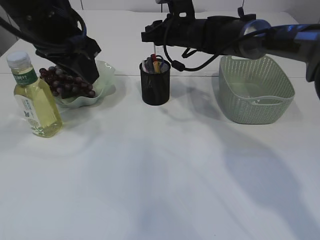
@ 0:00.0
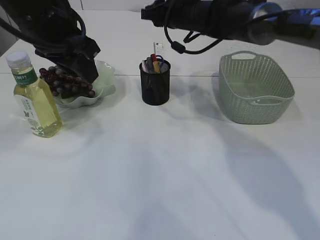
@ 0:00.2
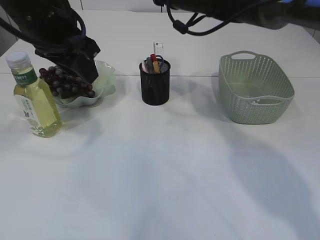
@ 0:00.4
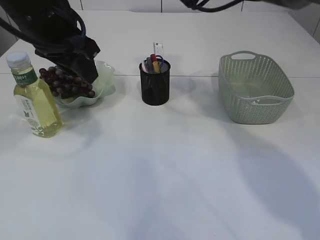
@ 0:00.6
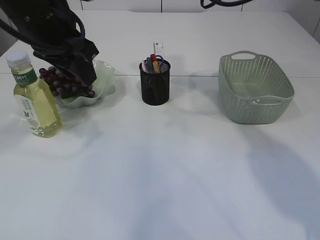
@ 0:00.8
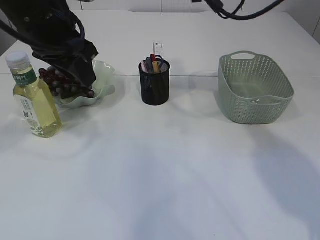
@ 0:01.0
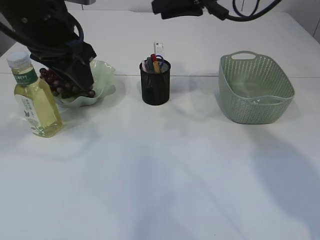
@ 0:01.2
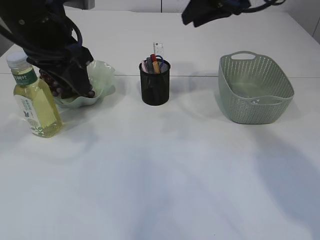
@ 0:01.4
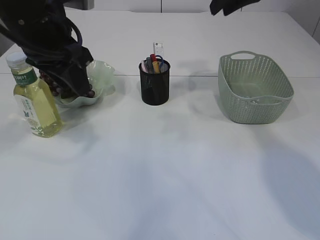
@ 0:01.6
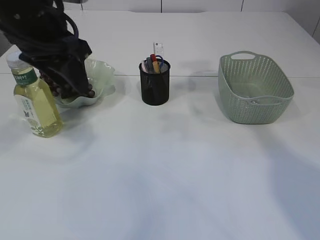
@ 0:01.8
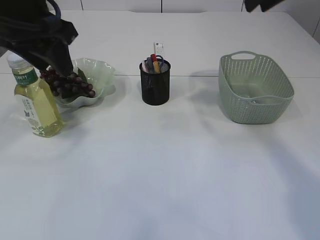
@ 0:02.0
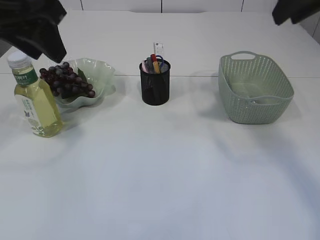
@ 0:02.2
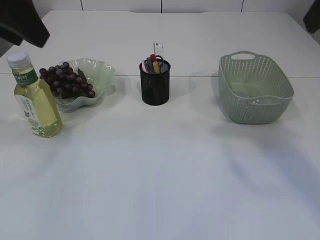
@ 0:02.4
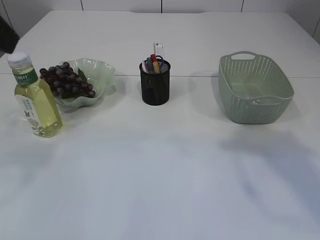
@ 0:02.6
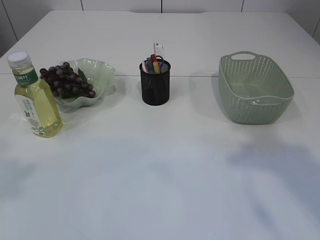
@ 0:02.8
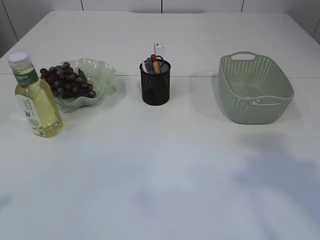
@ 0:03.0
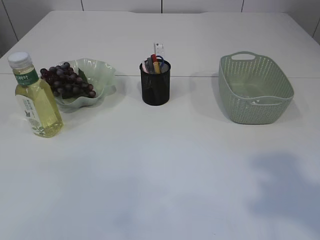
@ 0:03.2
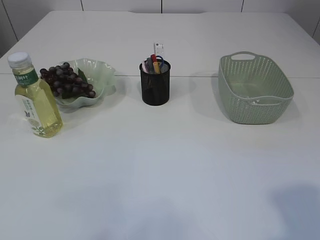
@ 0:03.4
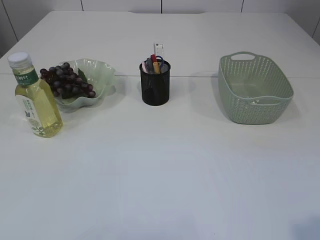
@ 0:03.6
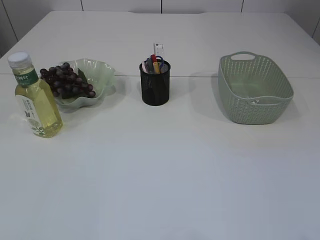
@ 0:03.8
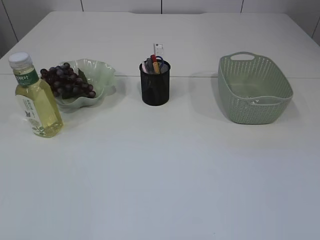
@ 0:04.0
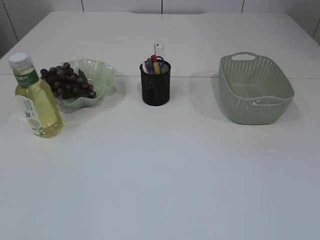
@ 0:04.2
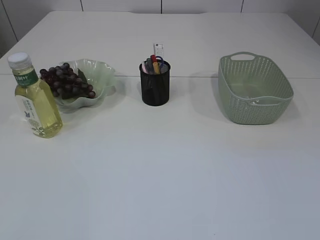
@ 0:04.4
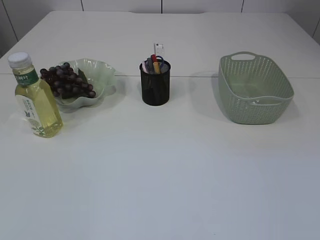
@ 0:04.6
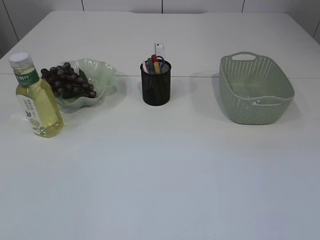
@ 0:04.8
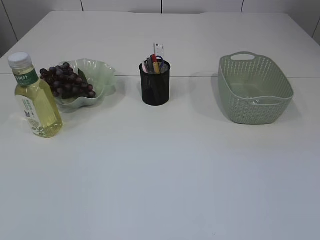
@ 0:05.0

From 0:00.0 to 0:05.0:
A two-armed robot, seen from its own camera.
From 0:00.0 to 0:01.6: The right gripper goes some 20 cm upward, to the right and backward.
From 0:01.6 to 0:03.4: The left gripper heads backward and to the left, covering about 35 cm. Meanwhile the right gripper is displaced backward by some 35 cm.

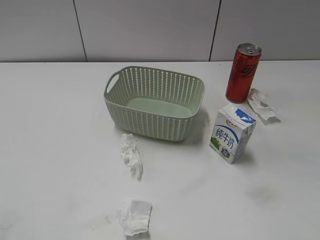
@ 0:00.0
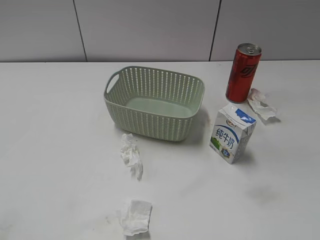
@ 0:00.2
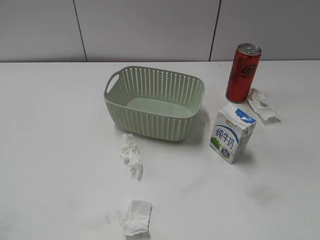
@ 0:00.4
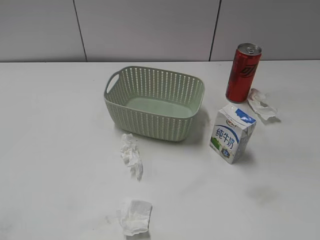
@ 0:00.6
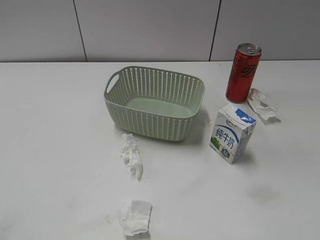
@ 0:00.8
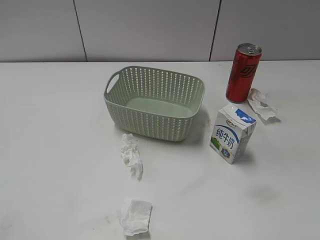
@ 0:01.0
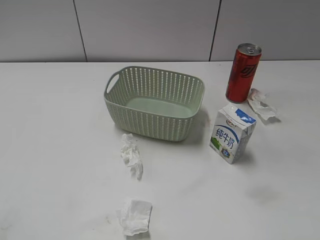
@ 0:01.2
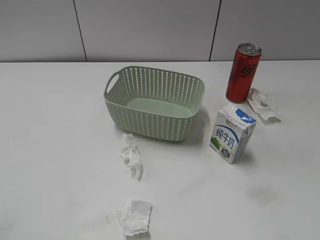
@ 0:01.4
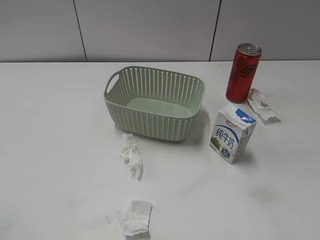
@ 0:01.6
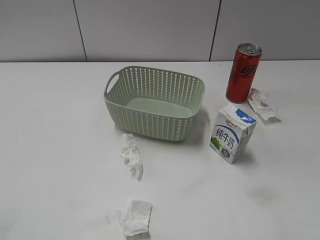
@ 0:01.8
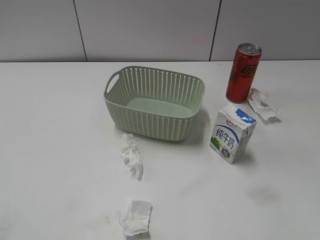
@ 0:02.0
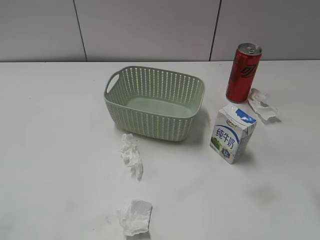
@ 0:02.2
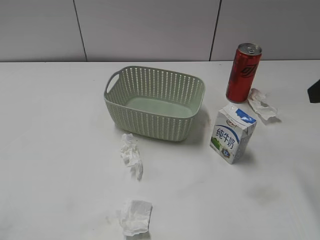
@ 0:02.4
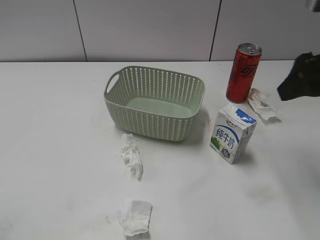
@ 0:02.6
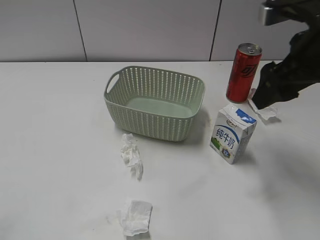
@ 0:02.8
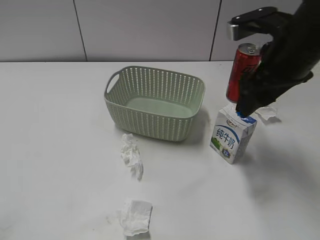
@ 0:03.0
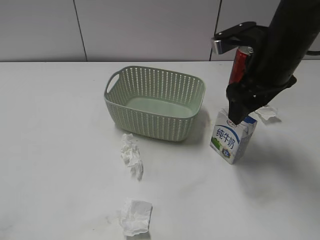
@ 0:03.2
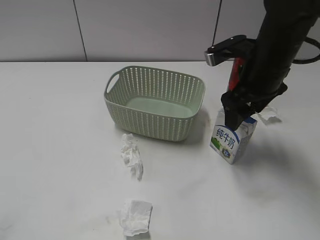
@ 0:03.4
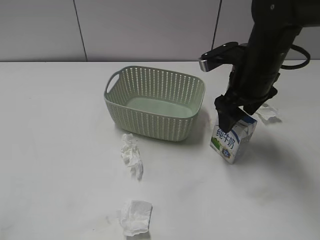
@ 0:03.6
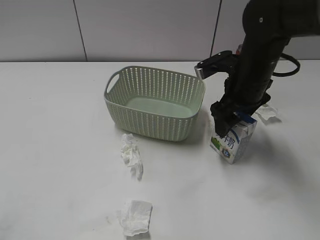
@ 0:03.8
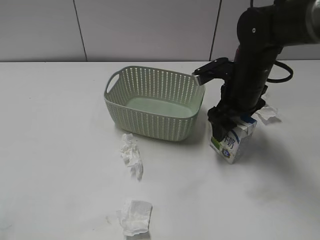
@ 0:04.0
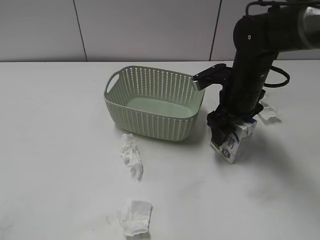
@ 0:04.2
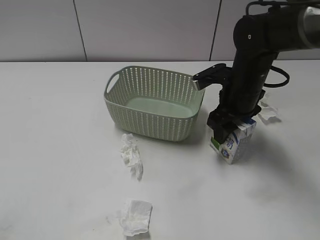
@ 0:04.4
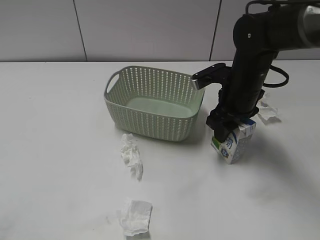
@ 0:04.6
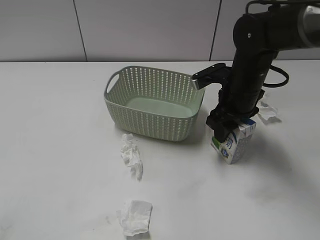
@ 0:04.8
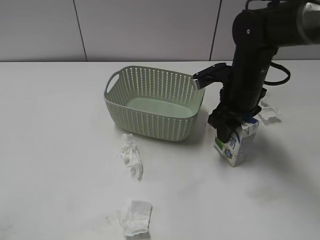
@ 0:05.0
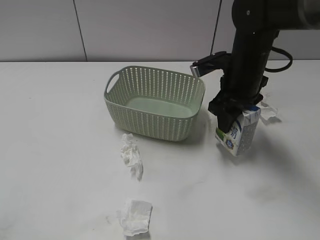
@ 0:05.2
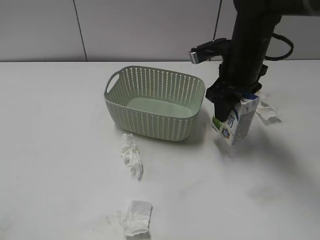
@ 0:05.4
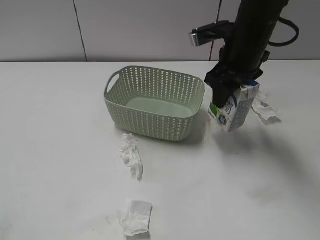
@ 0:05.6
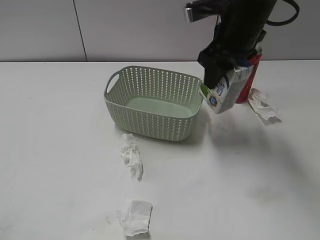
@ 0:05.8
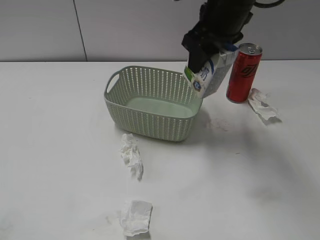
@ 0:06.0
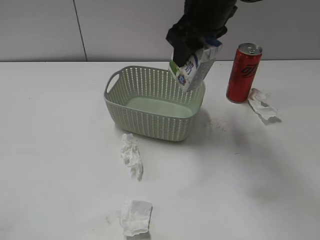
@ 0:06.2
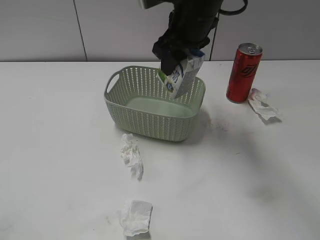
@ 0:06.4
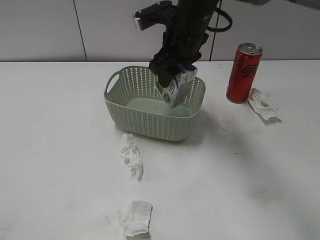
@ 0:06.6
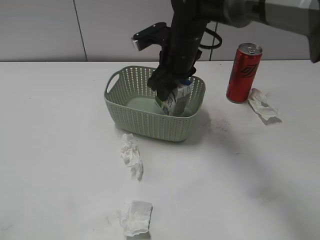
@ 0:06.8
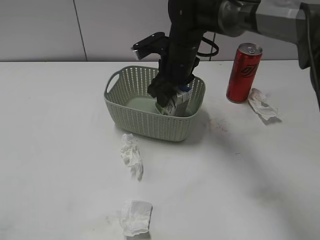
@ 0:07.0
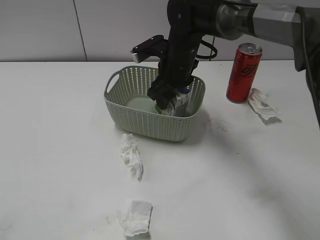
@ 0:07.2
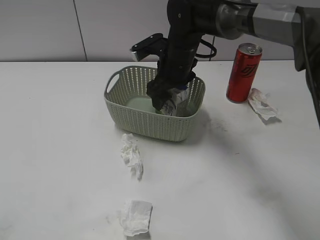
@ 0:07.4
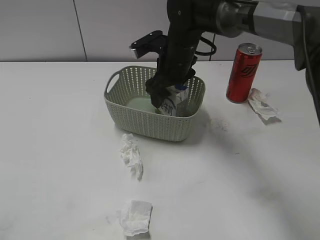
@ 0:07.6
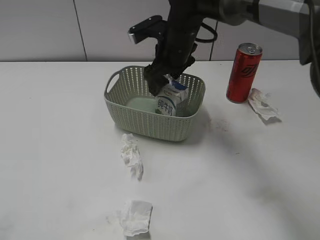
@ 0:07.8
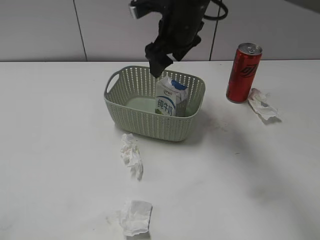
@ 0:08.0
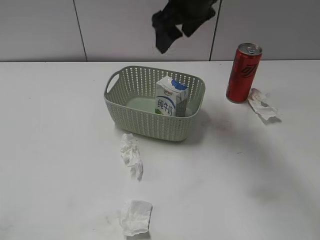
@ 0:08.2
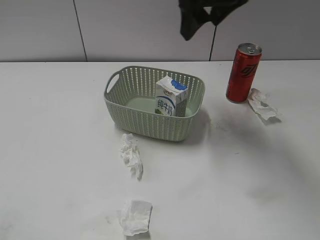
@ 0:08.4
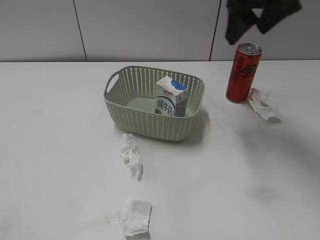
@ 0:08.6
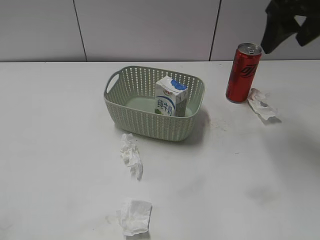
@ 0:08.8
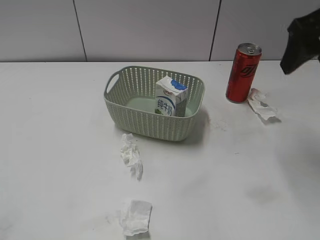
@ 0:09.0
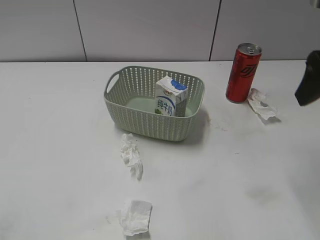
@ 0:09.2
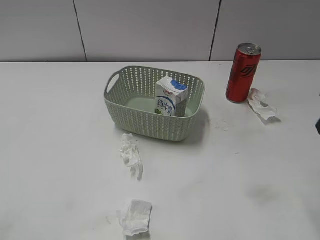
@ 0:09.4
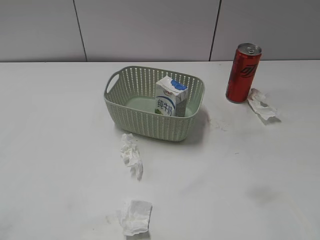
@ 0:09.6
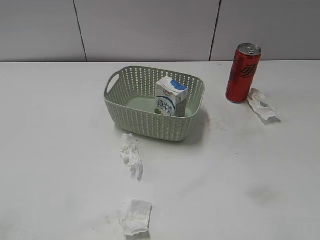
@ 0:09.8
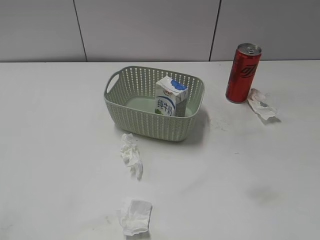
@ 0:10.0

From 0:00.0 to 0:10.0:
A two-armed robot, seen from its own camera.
Step, from 0:02.4 to 0:04.6: Grasp the milk with right gripper.
Step, from 0:04.8 to 0:08.2: Place the milk in the basket with right gripper.
From 0:01.4 to 0:02.8: The right gripper moves forward, about 25 cm.
From 0:02.8 to 0:04.2: The right gripper travels downward, forward and to the left by about 20 cm.
From 0:04.2 to 0:05.8: The right gripper heads upward, covering some 10 cm, and closes up.
From 0:05.8 to 0:07.2: The right gripper goes roughly 15 cm downward and to the left.
From 0:07.2 to 0:08.6: The right gripper is displaced upward and to the right by some 20 cm, and opens its fingers.
From 0:08.6 to 0:10.0: The right gripper moves backward and to the right, roughly 35 cm.
